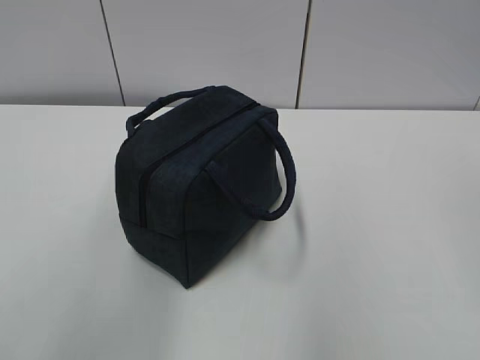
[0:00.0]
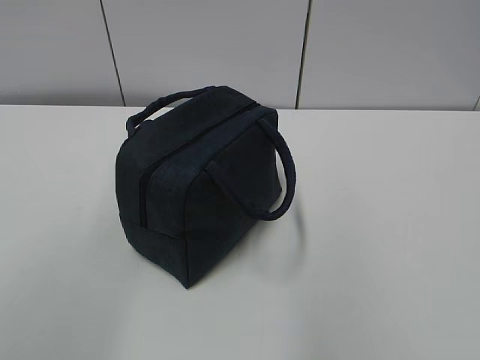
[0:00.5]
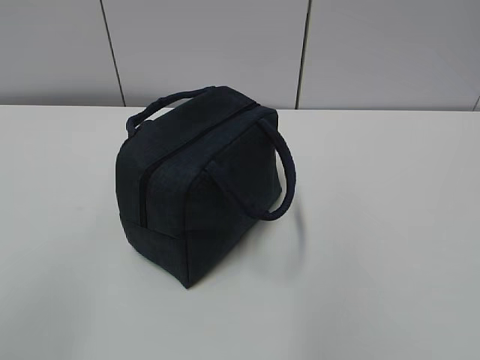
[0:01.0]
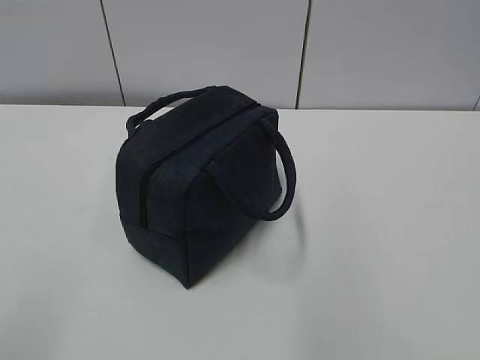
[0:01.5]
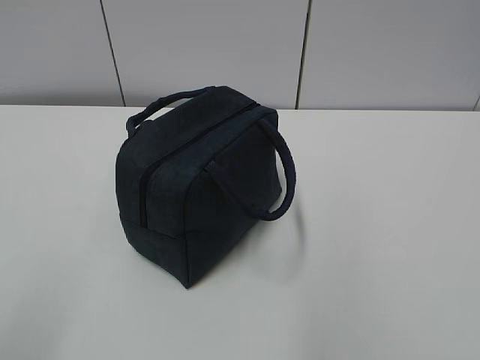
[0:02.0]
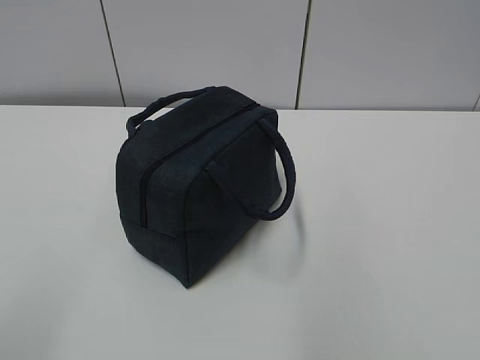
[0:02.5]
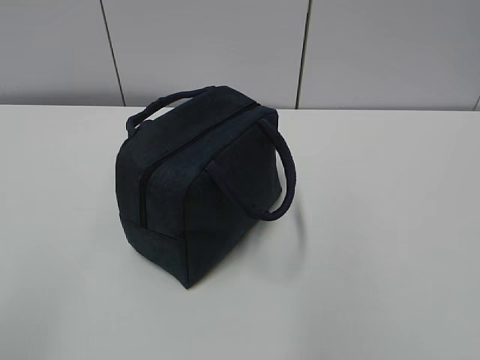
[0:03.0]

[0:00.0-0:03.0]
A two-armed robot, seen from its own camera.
0:00.0 to 0:01.5: The left gripper is displaced backward, downward and to the left by approximately 25 cm.

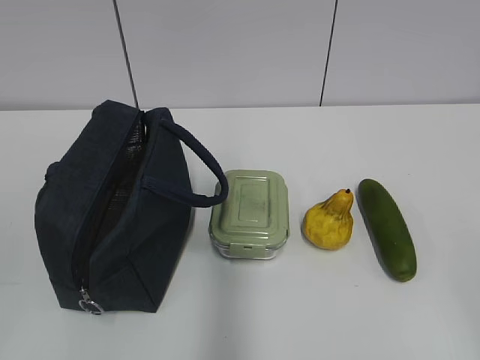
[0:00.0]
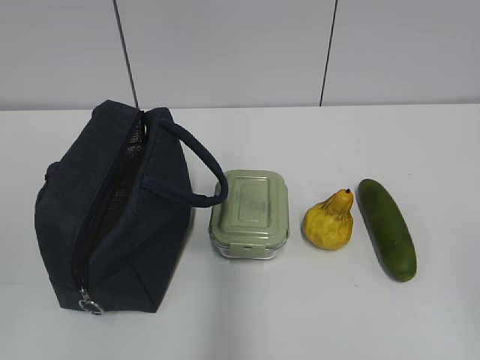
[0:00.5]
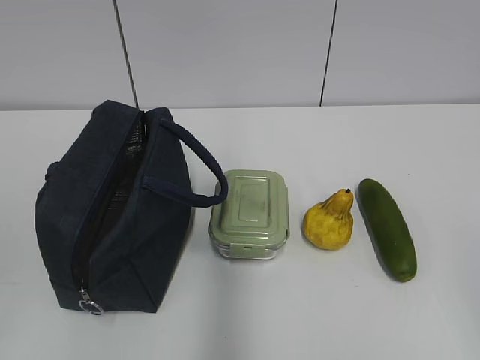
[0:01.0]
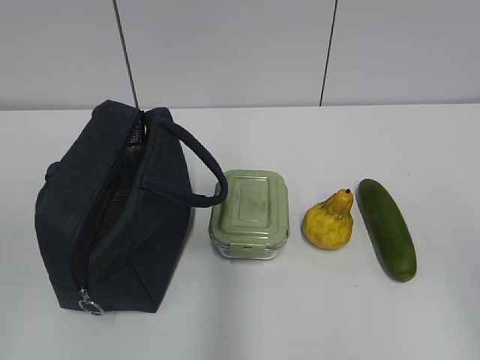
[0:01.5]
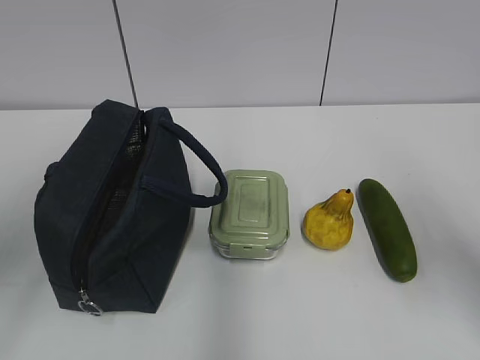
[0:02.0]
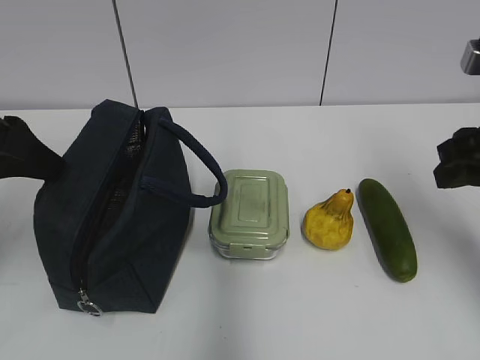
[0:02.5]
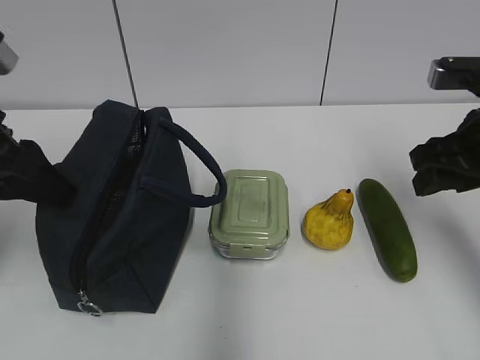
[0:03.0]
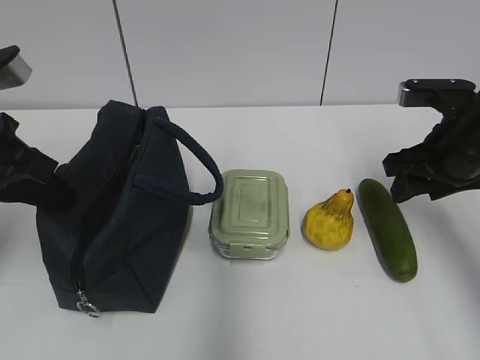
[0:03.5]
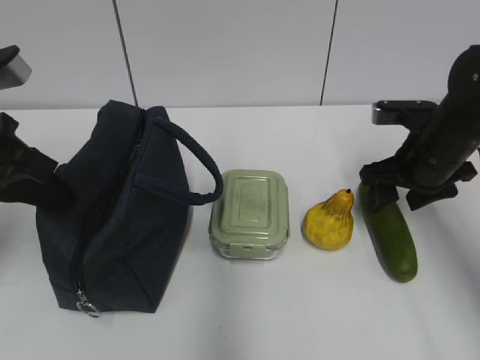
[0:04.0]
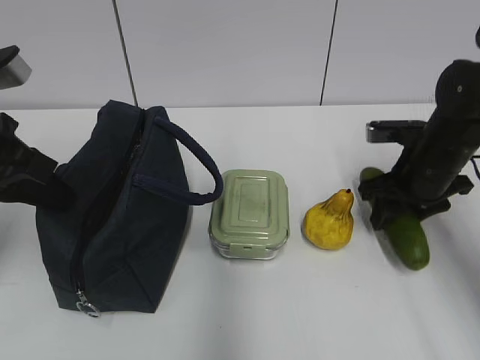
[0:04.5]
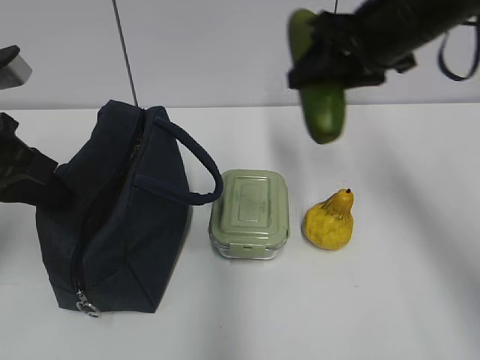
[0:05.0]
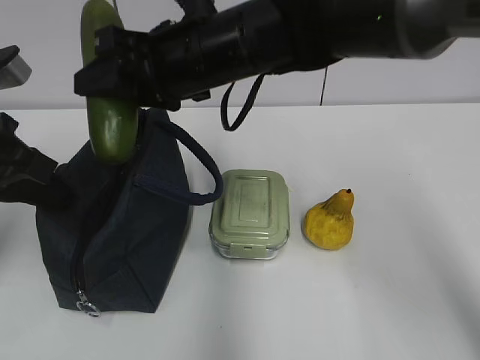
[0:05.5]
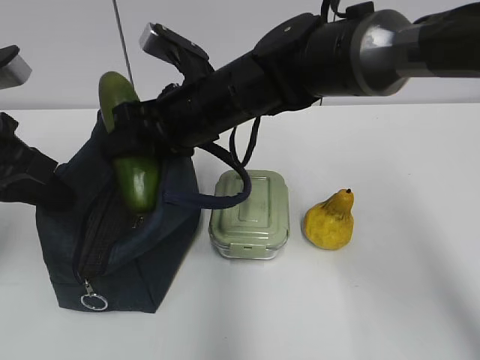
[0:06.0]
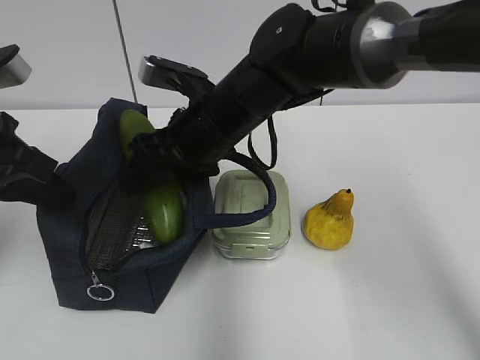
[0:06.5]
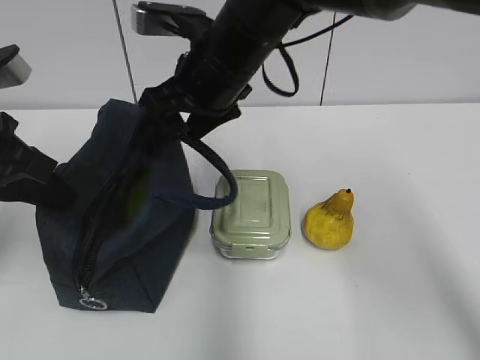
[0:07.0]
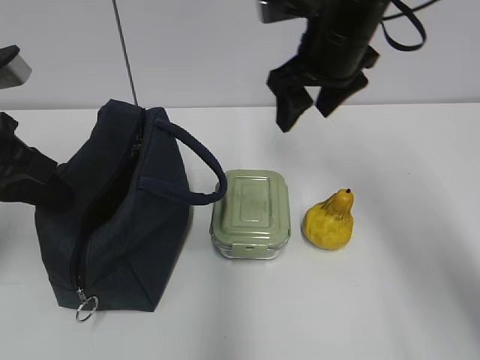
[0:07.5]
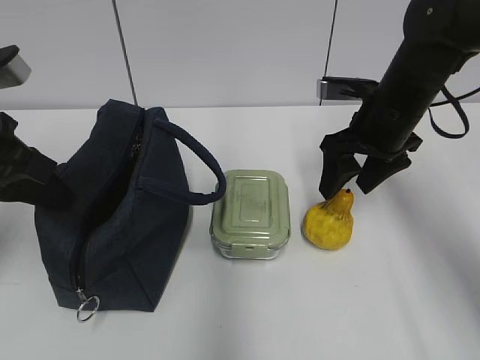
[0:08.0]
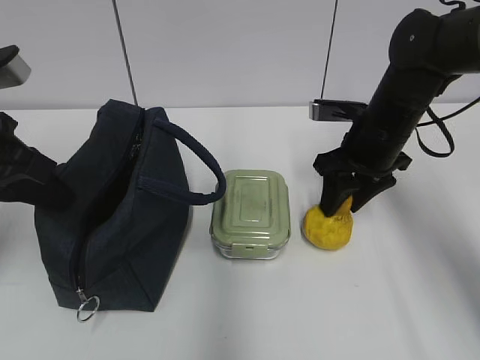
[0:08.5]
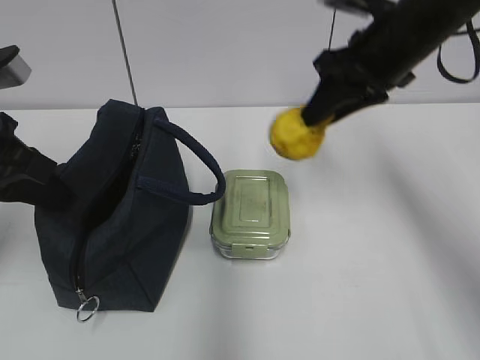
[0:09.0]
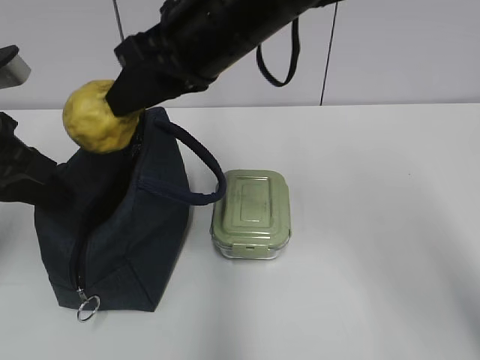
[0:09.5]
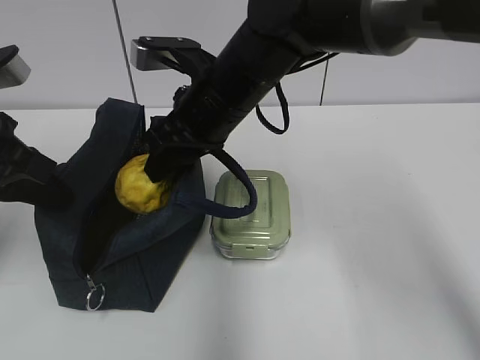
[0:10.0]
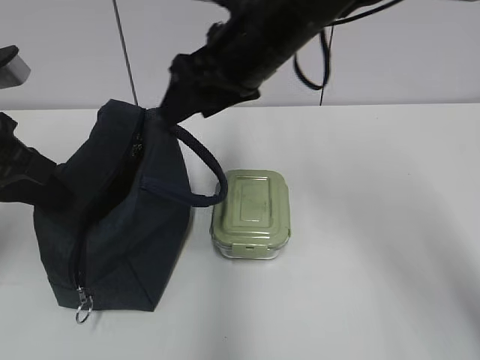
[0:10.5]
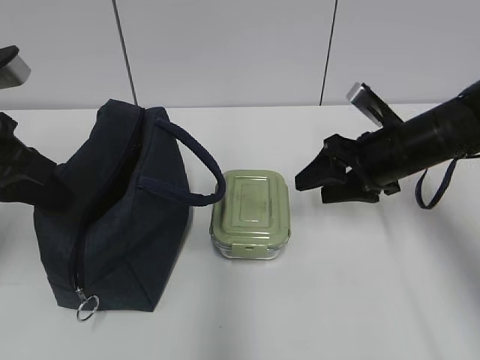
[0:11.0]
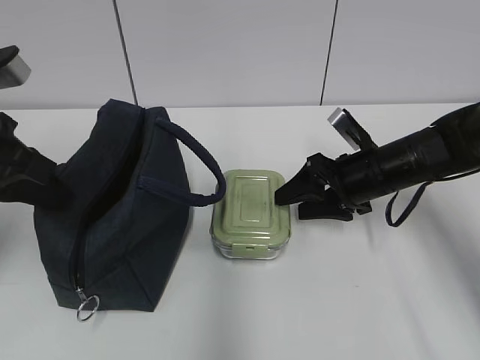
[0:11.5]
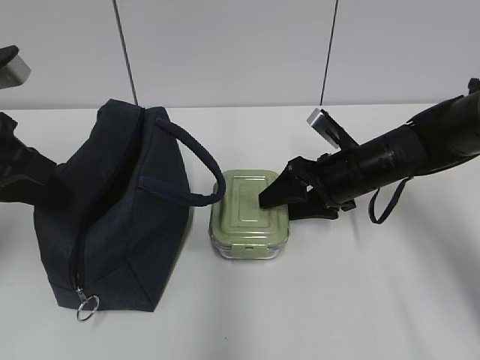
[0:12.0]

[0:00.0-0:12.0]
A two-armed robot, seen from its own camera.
0:02.0 to 0:04.0: The right gripper moves forward and downward, some 20 cm; the left gripper is displaced forward and downward by roughly 10 cm, and closes its fingers.
0:04.0 to 0:06.0: The right gripper shifts roughly 25 cm to the left.
0:06.0 to 0:08.0: The right gripper moves to the right, roughly 20 cm.
0:08.0 to 0:10.0: The right gripper heads to the left, covering about 20 cm, and closes up.
0:10.0 to 0:12.0: The right gripper shifts roughly 20 cm to the right and downward, and opens its fingers.

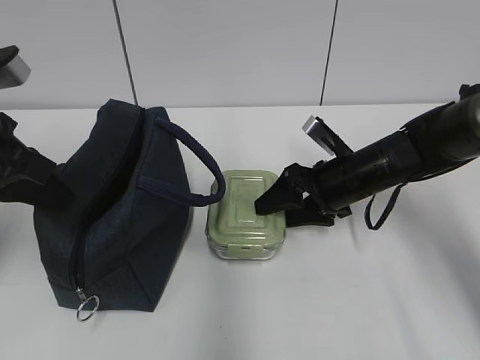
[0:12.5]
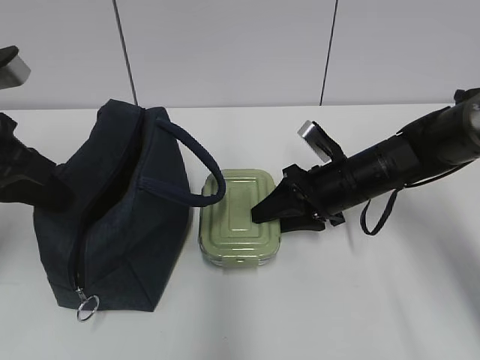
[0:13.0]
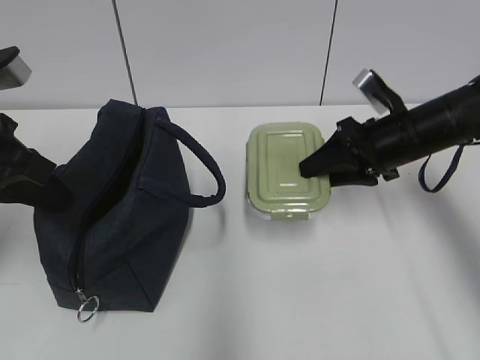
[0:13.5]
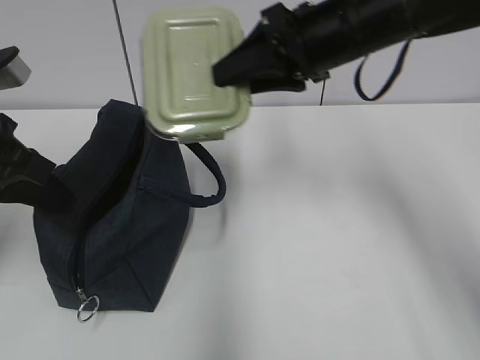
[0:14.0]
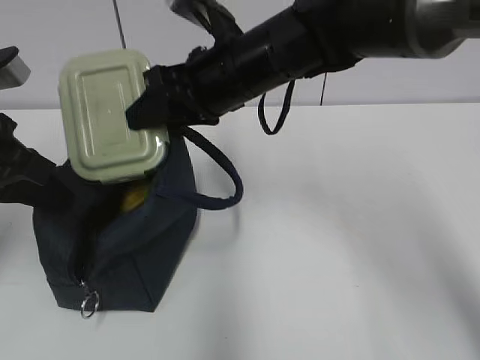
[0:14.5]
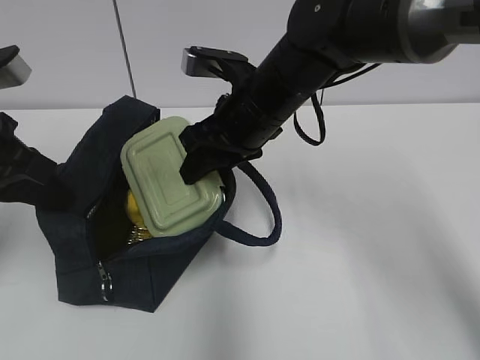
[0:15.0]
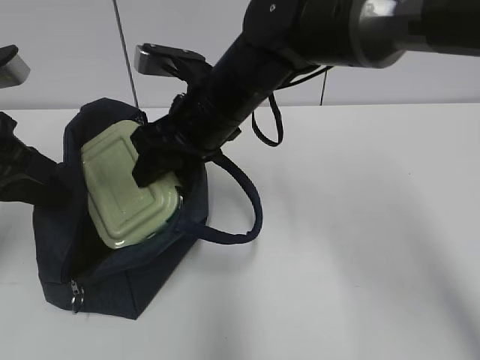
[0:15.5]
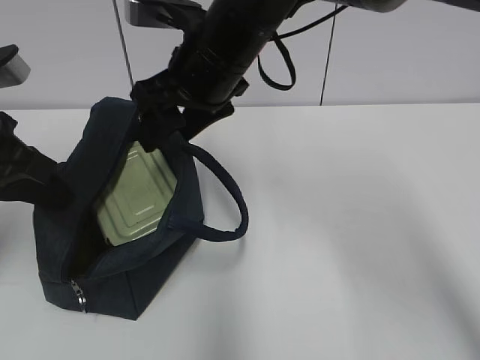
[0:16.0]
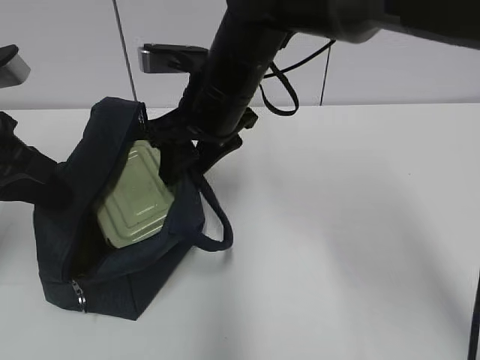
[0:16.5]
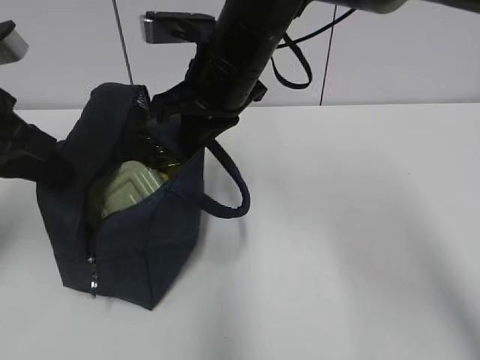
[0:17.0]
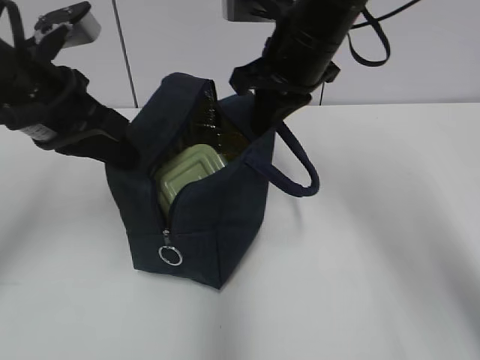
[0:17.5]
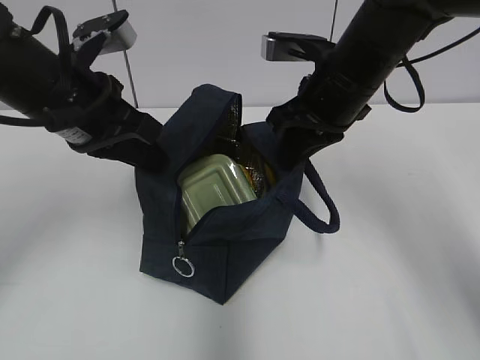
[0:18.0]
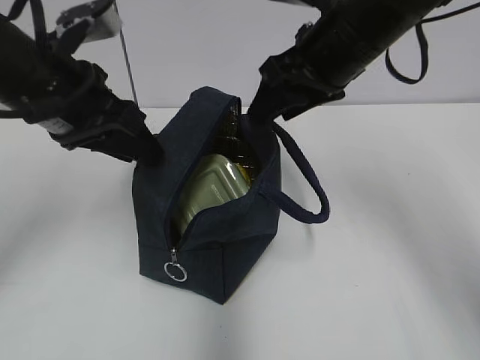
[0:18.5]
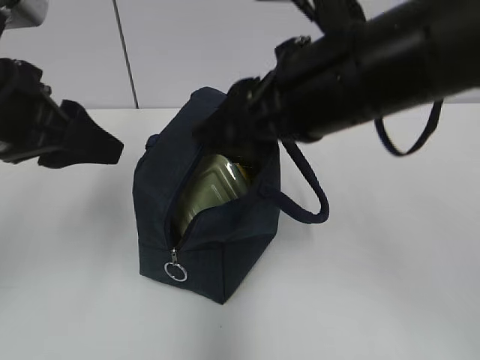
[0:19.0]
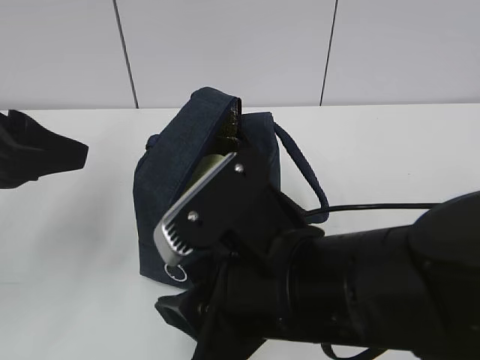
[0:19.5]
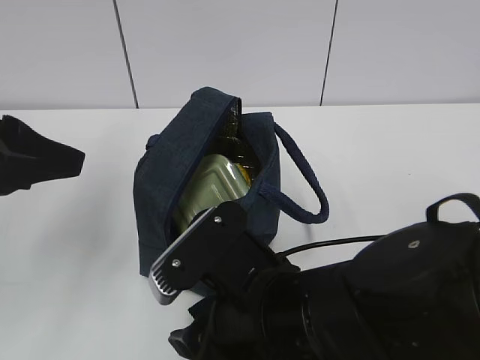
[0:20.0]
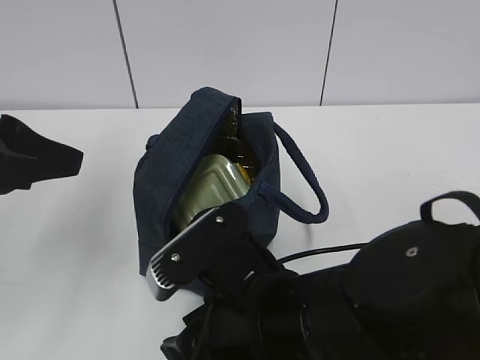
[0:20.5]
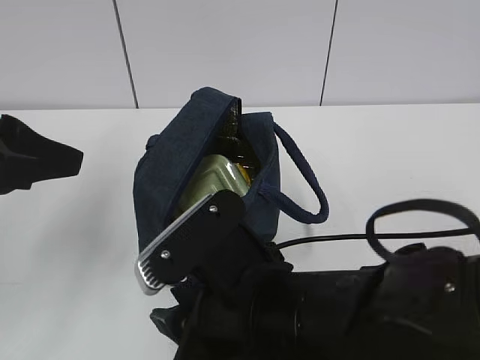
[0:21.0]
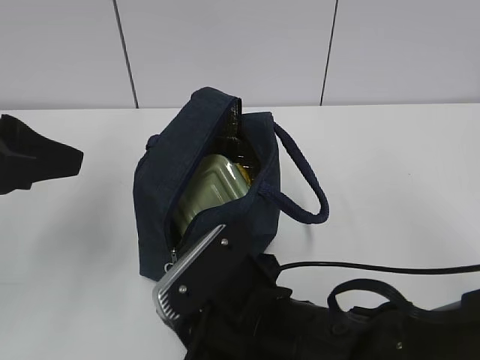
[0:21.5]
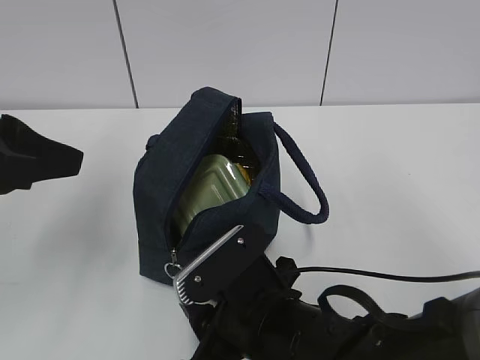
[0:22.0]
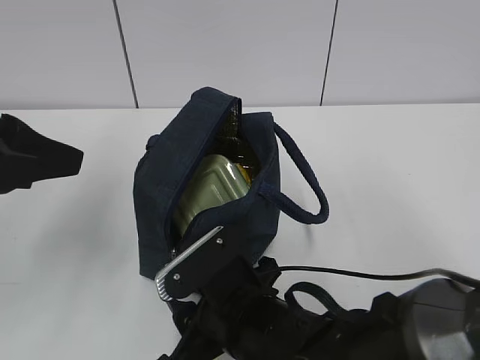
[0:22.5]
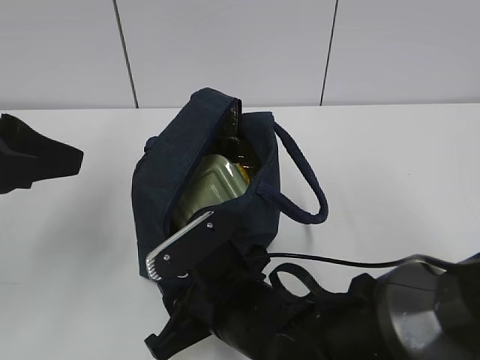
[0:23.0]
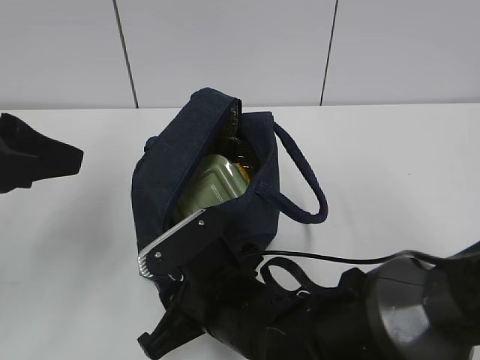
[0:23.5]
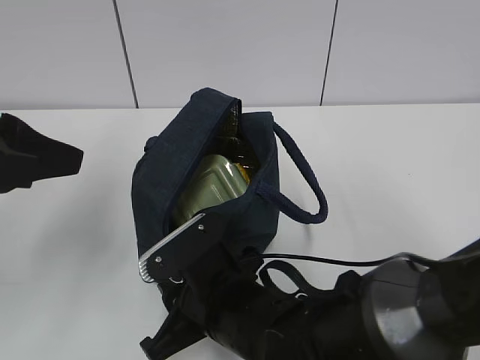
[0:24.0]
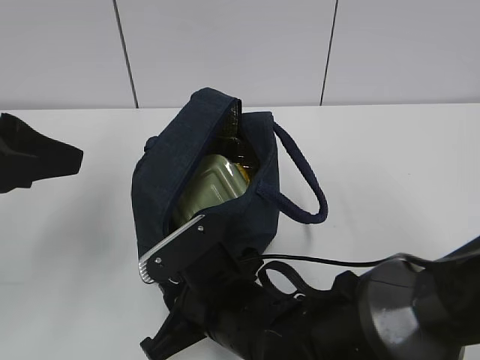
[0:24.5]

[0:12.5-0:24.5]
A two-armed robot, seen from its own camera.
0:12.5 to 0:14.5: The right gripper travels upward and to the left by some 20 cm.
0:16.5 to 0:18.5: The right gripper heads to the right and upward, covering roughly 15 cm, and closes and opens again; the left gripper is displaced to the right by some 5 cm, and opens up.
0:18.5 to 0:20.5: The left gripper shifts approximately 10 cm backward, while the right gripper moves backward, downward and to the left, roughly 25 cm.
0:20.5 to 0:22.5: The right gripper moves downward, about 5 cm.
0:22.5 to 0:24.5: The grippers make only small movements.
